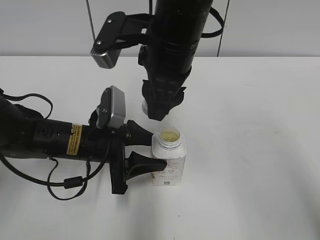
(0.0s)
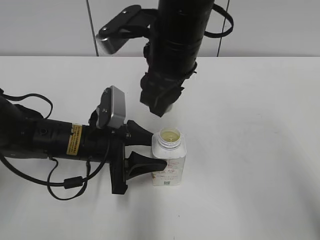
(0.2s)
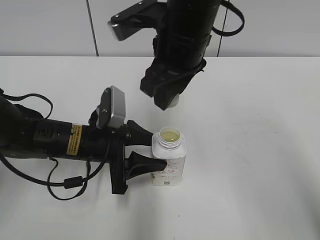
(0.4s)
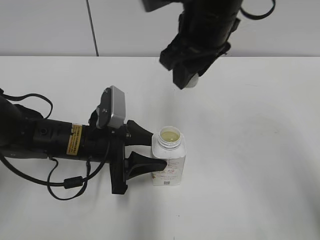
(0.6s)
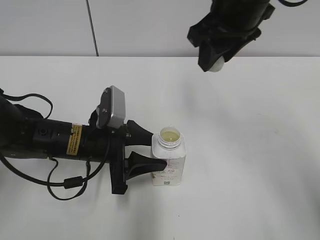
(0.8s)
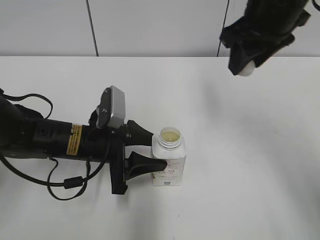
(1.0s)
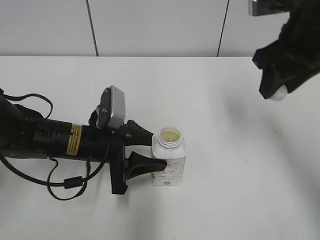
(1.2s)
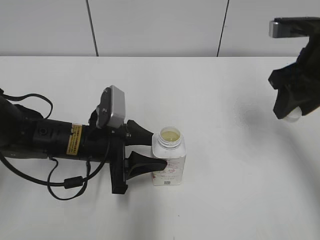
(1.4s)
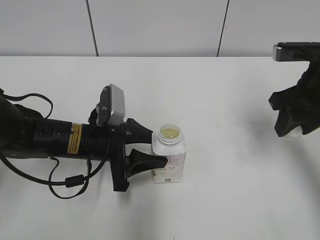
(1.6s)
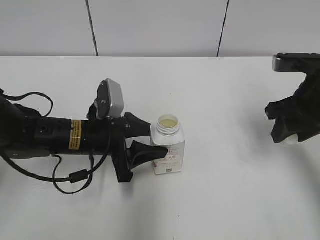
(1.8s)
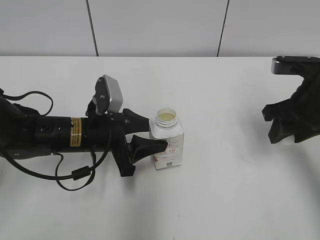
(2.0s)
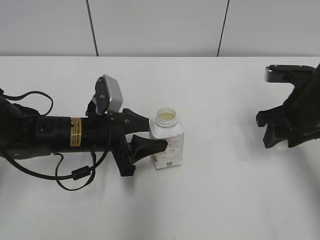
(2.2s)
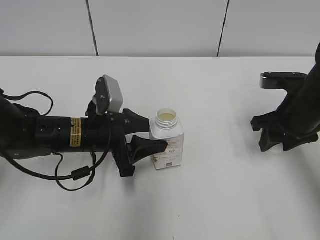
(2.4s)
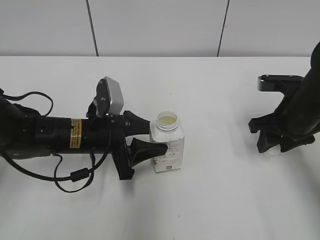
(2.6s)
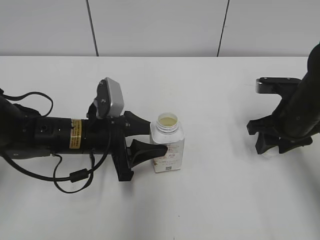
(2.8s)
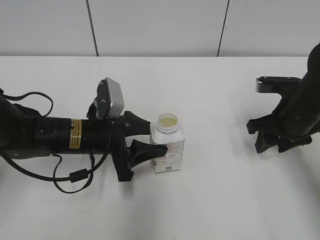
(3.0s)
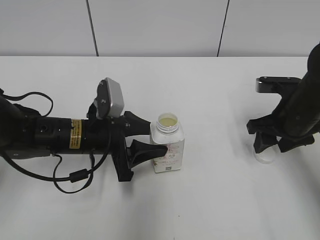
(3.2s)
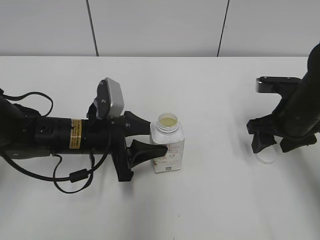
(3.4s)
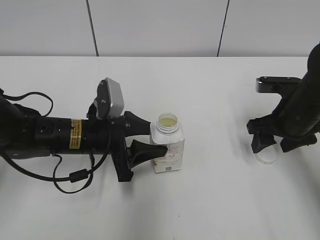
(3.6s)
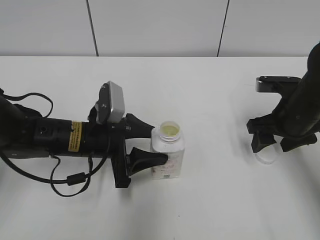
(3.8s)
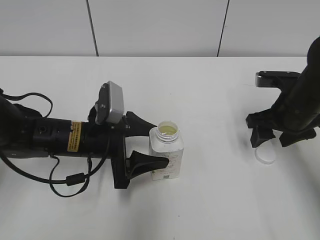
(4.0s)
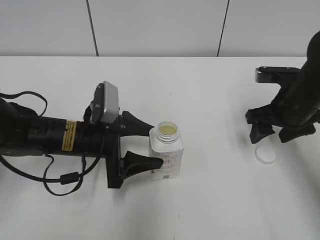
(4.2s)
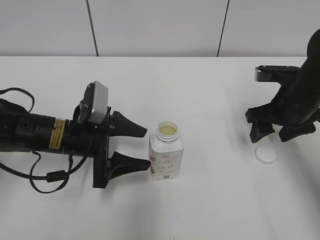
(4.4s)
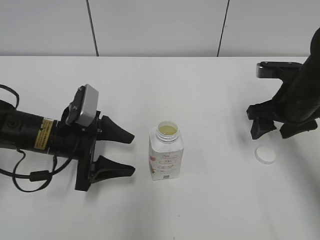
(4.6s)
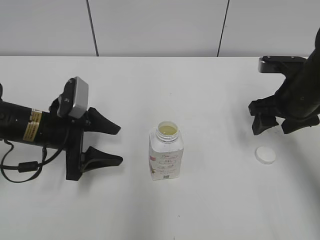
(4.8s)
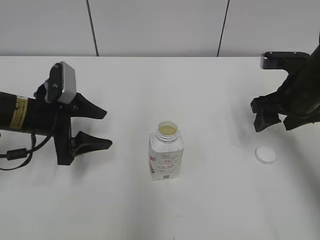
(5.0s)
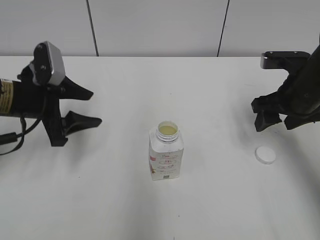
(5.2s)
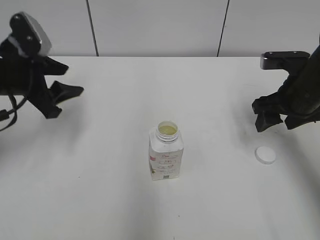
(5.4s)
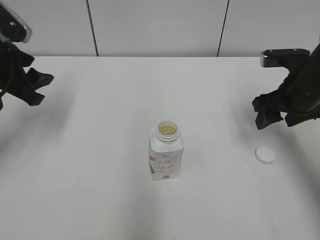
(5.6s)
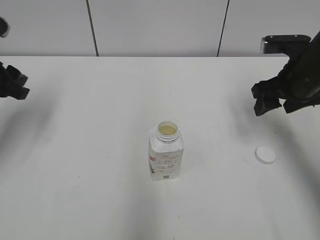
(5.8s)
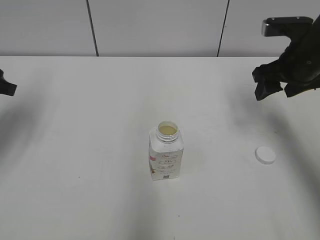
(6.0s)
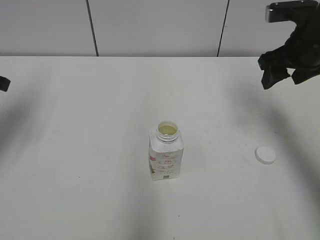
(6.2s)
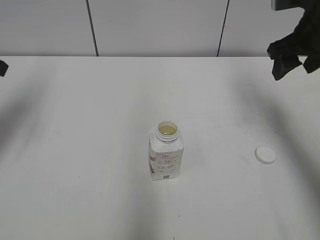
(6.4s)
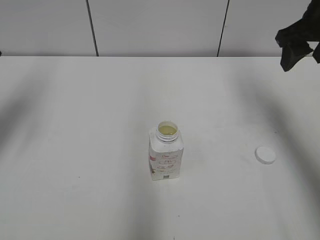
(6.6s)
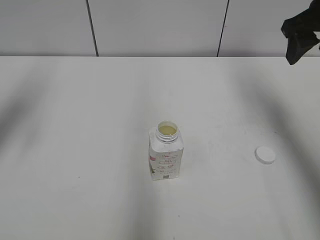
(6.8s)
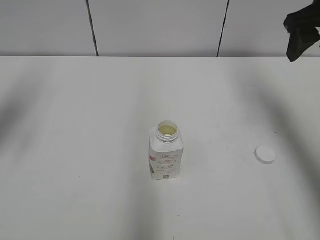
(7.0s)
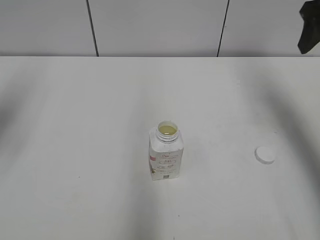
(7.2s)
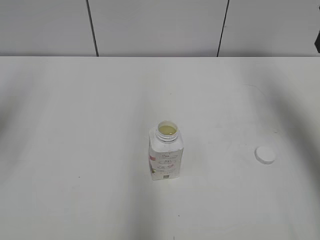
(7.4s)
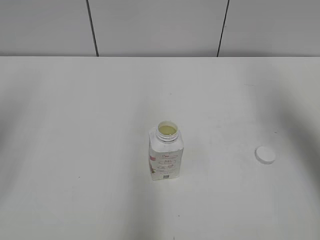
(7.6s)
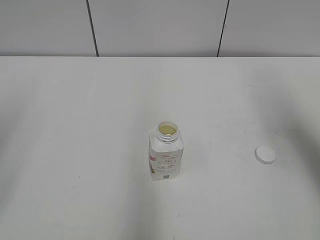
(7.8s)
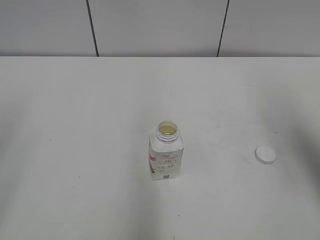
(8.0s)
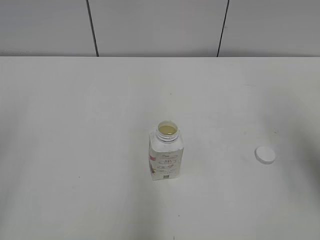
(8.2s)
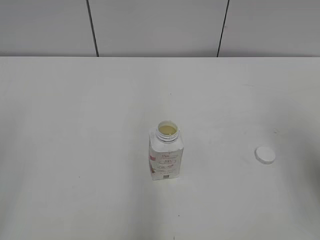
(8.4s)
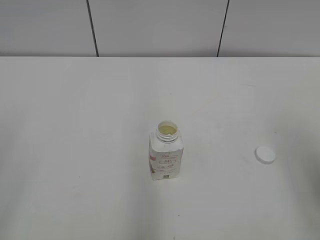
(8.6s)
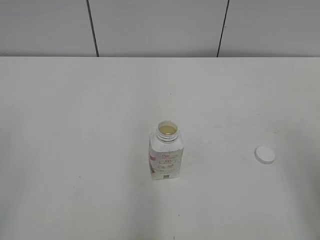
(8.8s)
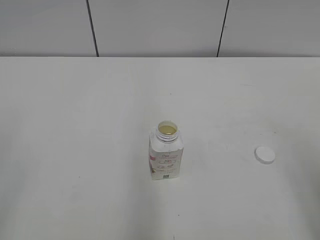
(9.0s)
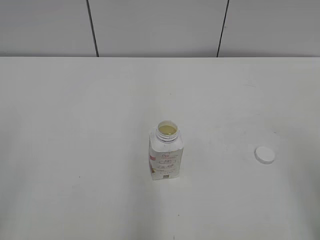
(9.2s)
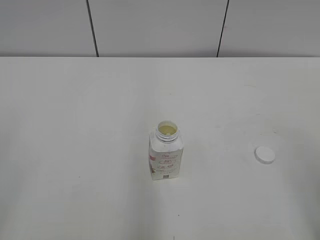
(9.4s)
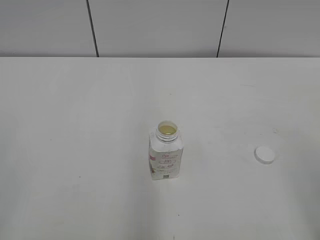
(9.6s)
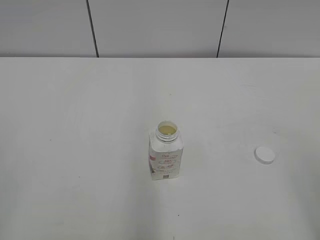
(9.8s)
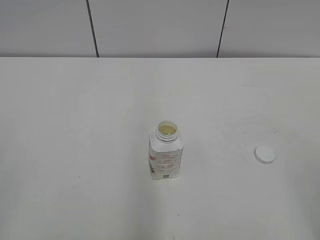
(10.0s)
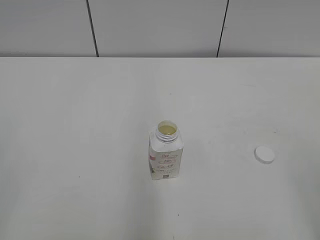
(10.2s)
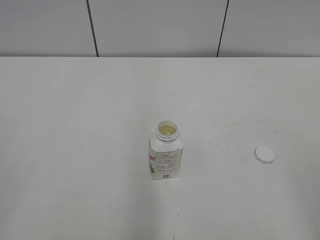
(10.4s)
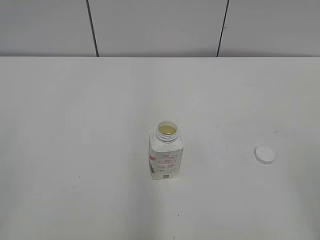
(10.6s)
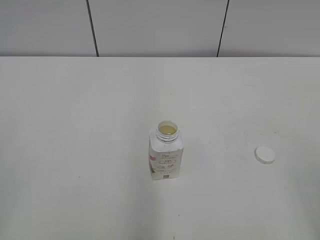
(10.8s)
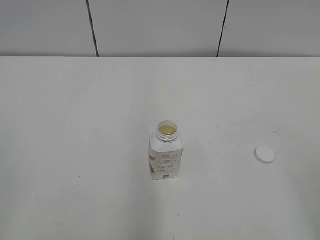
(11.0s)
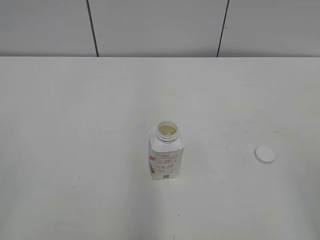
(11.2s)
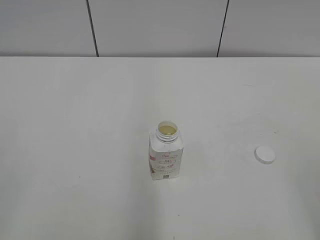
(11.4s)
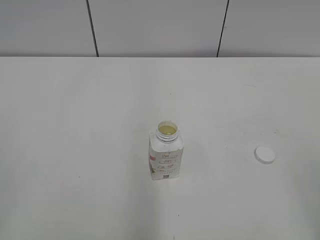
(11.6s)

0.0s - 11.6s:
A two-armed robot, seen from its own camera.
Step, 0.0s - 3.2s: Place the bottle cap on the right.
0.0s - 1.4s: The right gripper shifts roughly 20 cm to the right.
1.4s - 2.8s: The right gripper moves downward, approximately 10 cm.
2.8s - 4.4s: The left gripper opens its fingers. The right gripper opens.
4.4s - 5.8s: The left gripper goes roughly 20 cm to the left and upward, and closes its fingers.
5.8s - 7.2s: The two grippers go some 10 cm upward.
7.2s - 8.8s: The two grippers go about 25 cm backward.
10.2s - 11.6s: The two grippers keep their place.
